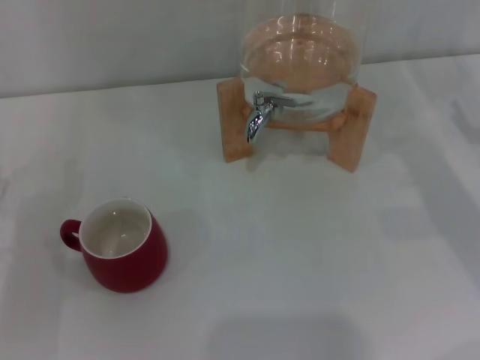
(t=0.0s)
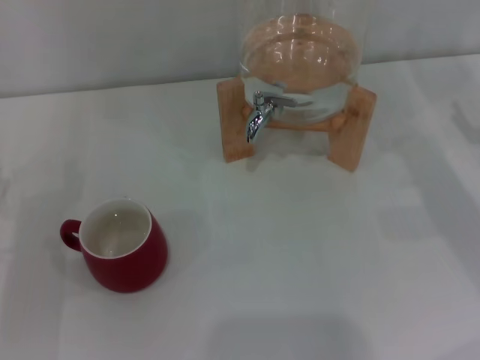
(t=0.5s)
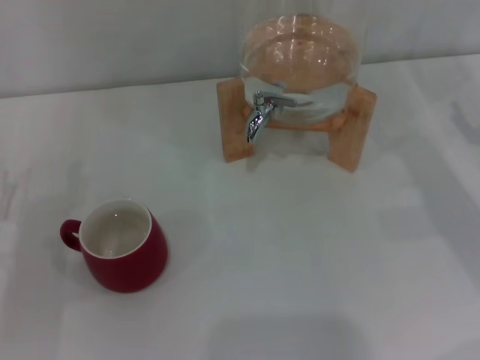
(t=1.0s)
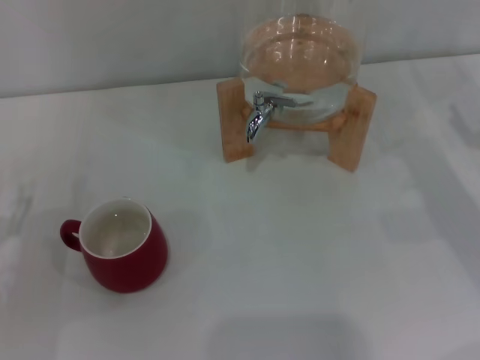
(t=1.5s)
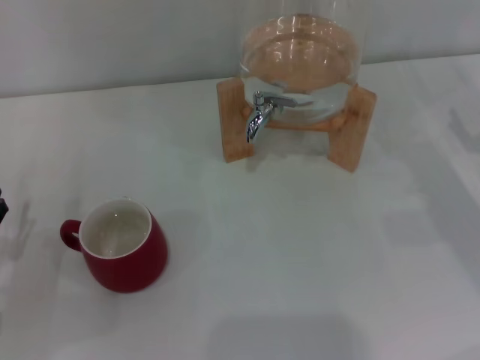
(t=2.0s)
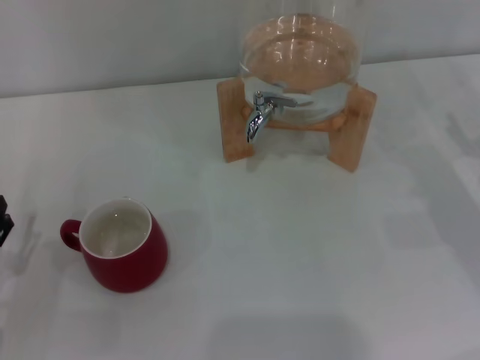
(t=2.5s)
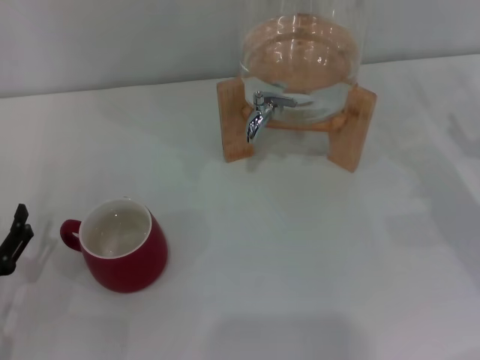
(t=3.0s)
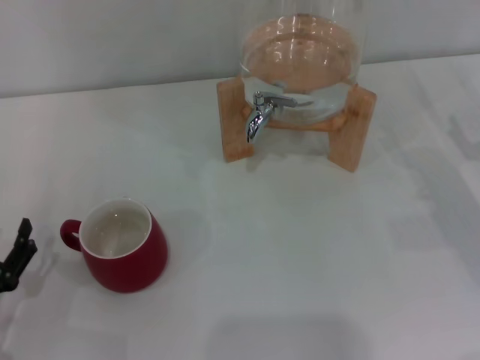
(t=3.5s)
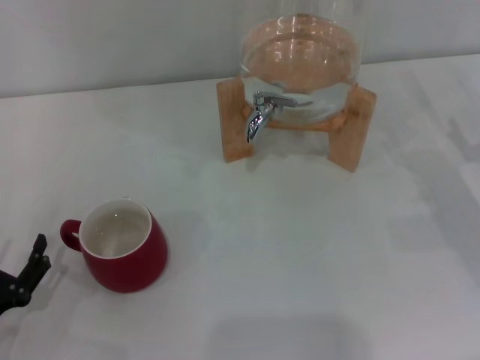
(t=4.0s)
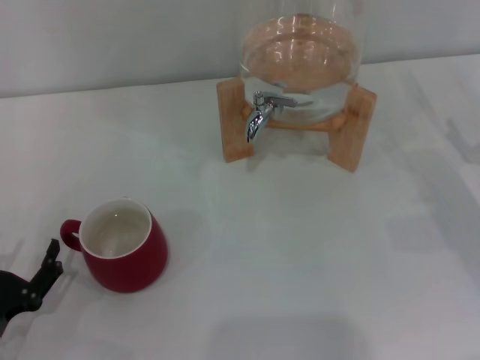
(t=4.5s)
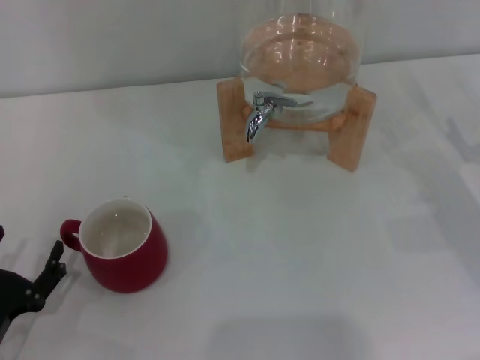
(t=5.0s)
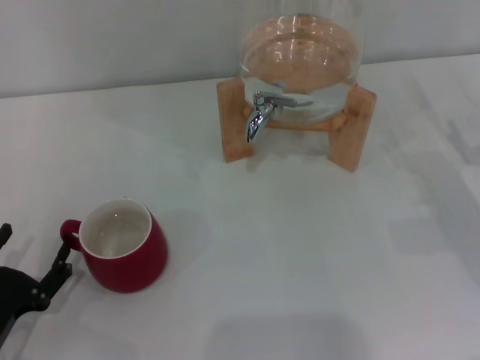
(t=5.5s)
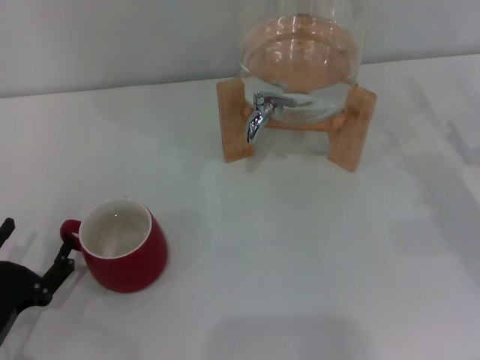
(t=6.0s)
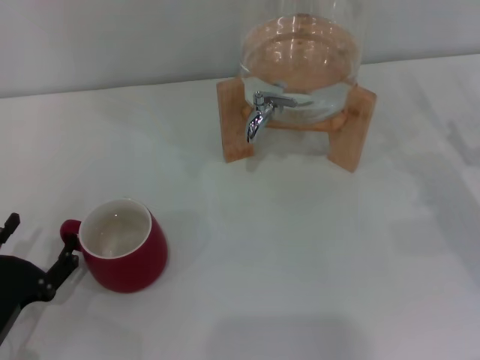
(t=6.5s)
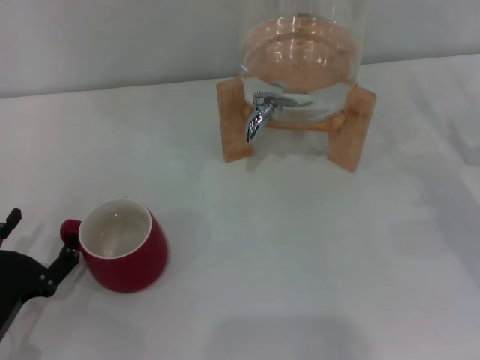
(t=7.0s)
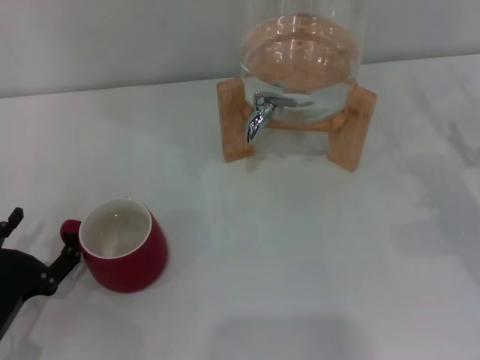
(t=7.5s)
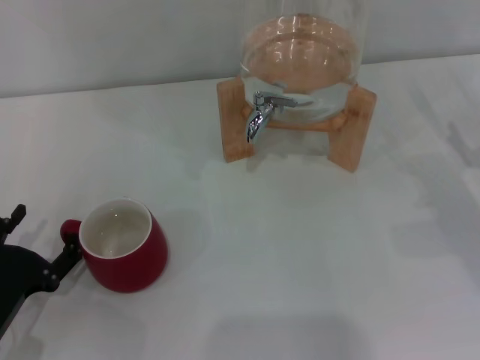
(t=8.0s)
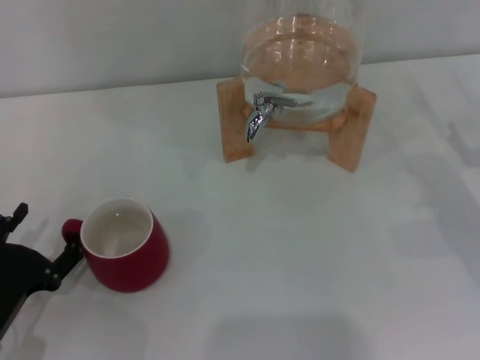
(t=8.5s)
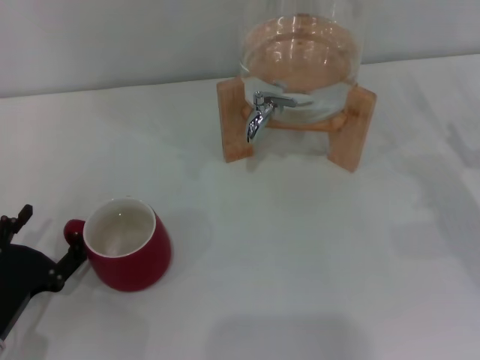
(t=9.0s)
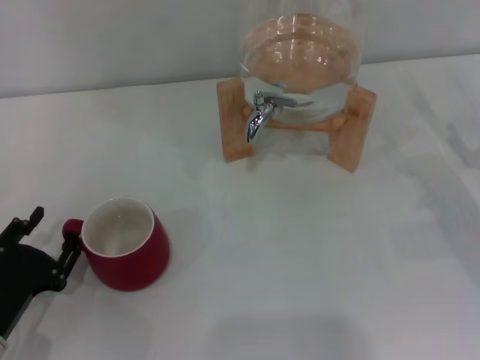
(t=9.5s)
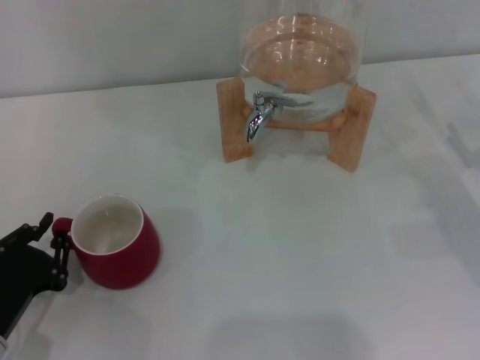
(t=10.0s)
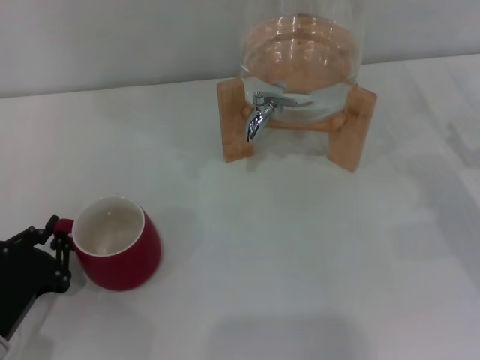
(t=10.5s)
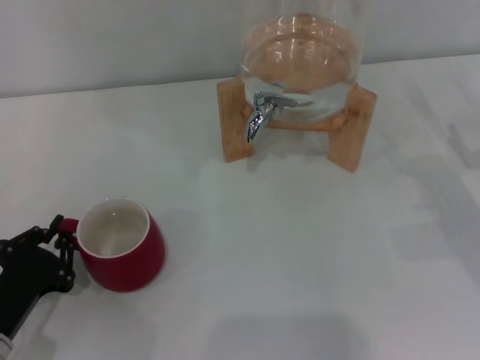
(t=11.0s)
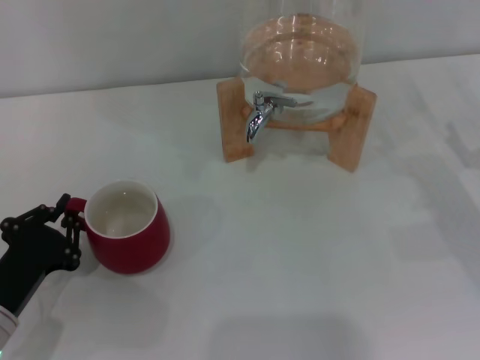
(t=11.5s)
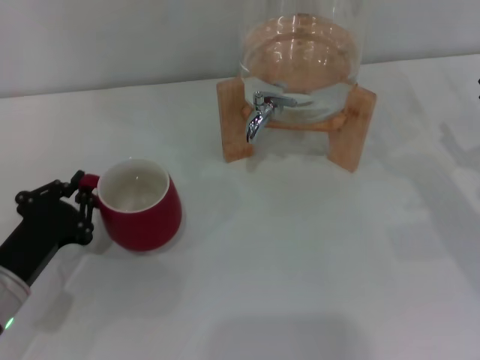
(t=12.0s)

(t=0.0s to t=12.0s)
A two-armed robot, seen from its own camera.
Task of the whole recording: the left gripper pick up the red cup and place it horizontally under the faucet, the right gripper turn on the faucet to fill the cup, and then turn off the faucet.
t=2.0s - t=4.0s: The left gripper goes approximately 5 cm backward.
t=4.0s - t=8.0s: The grippers make only small movements.
t=8.0s - t=10.0s: The left gripper closes its fingers.
t=10.0s - t=12.0s: The left gripper shifts by roughly 5 cm.

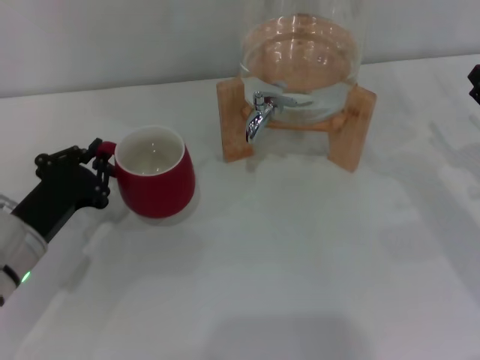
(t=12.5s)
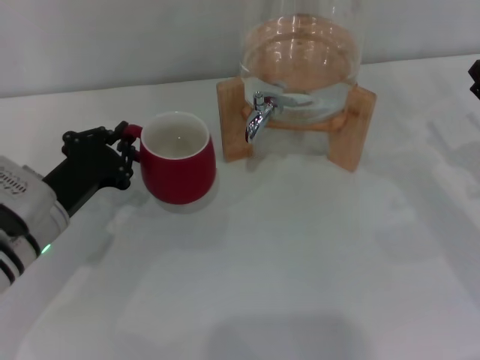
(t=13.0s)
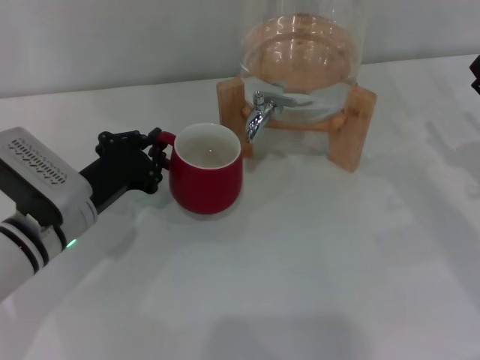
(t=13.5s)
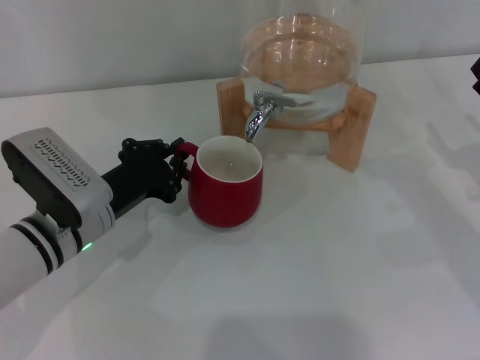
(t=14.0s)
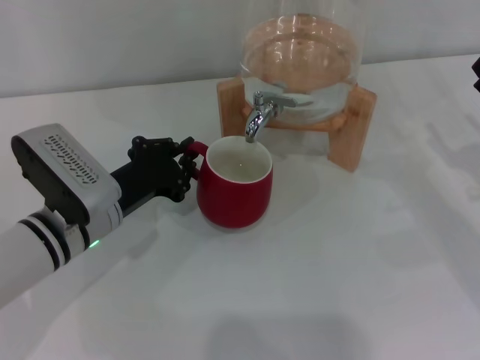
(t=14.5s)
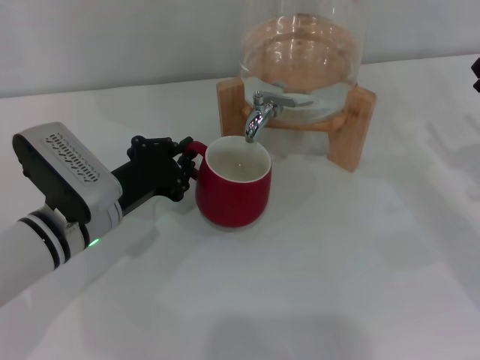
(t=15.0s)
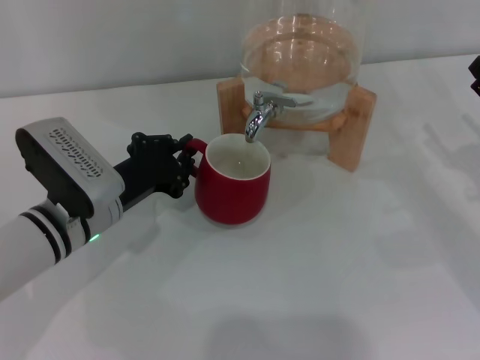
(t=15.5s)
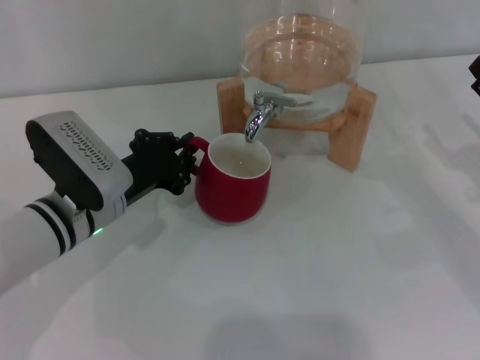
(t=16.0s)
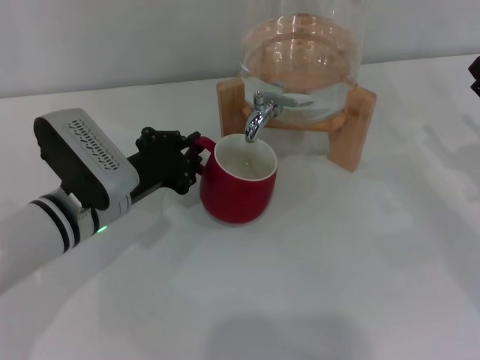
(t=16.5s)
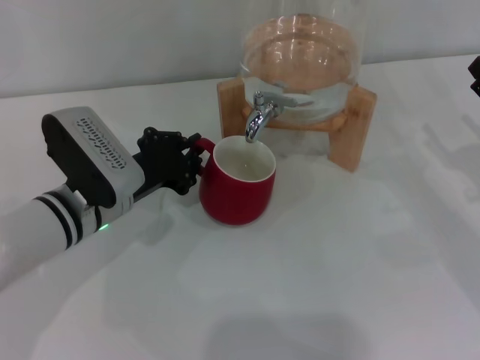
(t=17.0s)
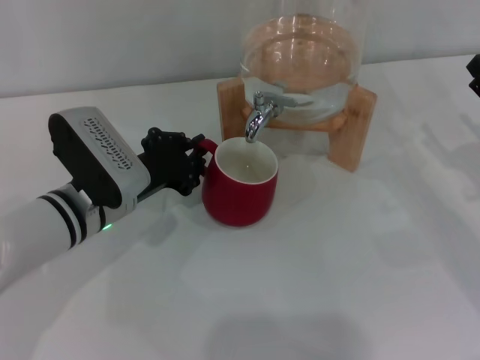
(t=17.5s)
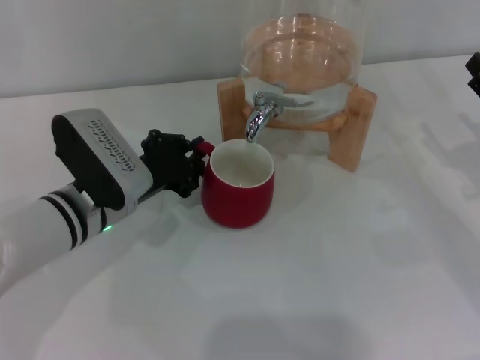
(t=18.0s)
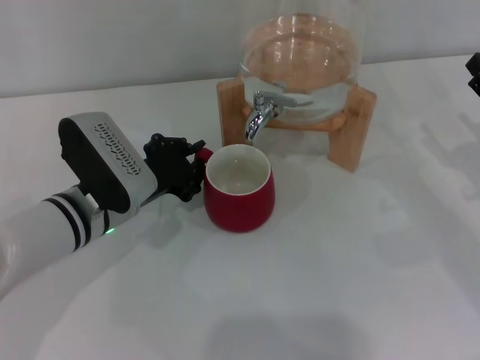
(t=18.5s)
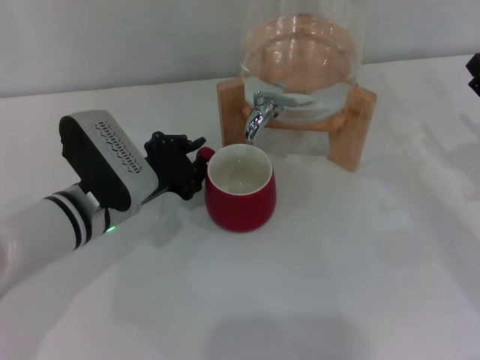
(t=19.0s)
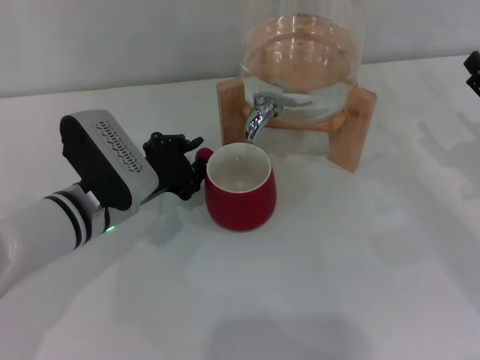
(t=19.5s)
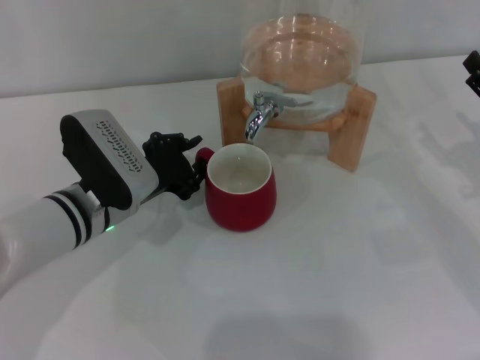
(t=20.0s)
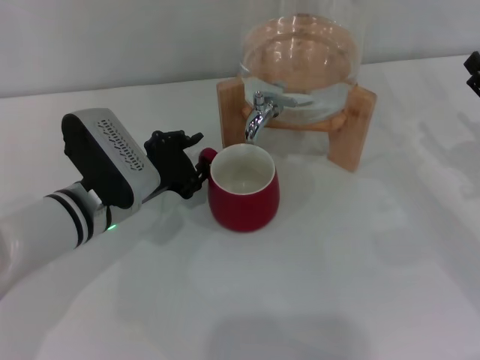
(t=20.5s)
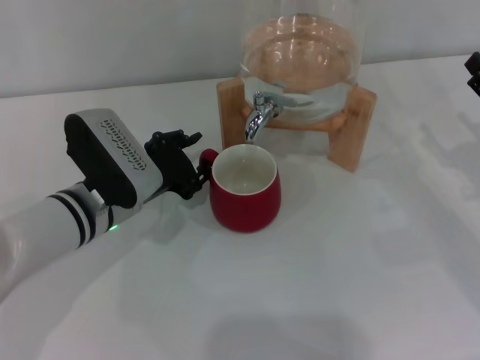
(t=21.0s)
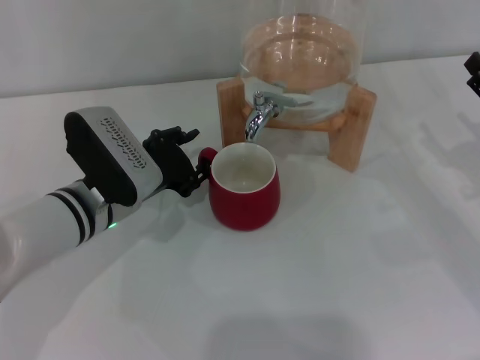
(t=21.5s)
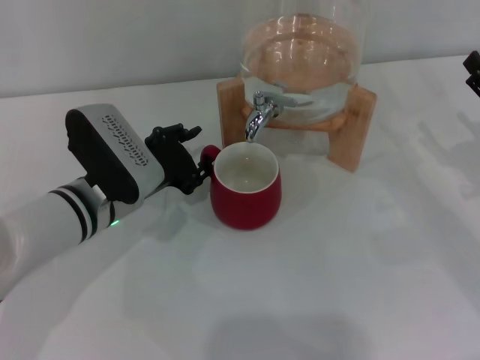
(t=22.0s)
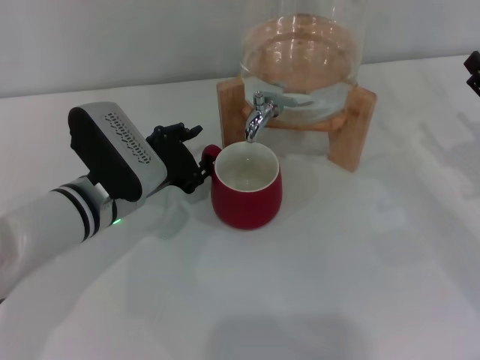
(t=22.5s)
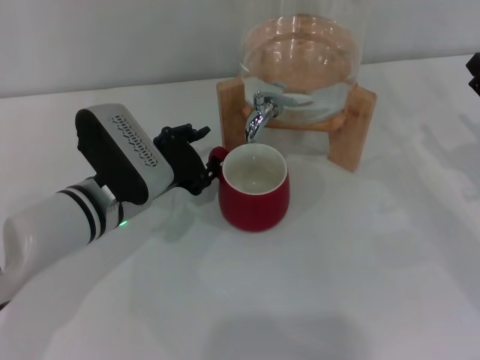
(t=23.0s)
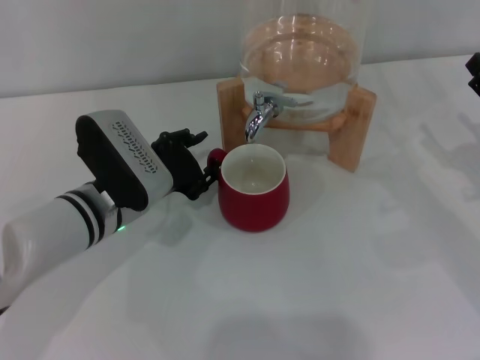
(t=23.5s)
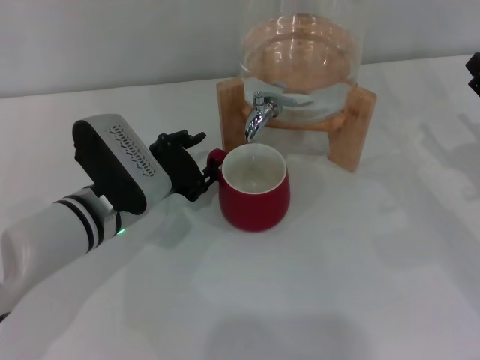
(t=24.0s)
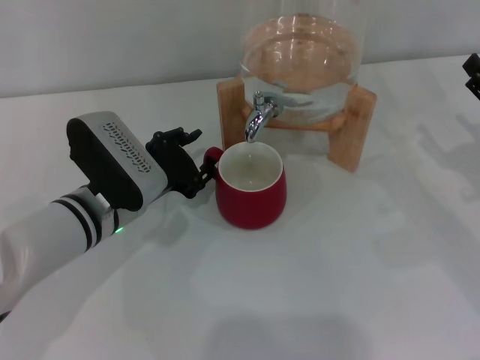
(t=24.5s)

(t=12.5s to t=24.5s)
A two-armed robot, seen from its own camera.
Task of the whole recording: the left gripper pick up the red cup and place it horizontally under the faucet, the right gripper turn on the faucet to fill the cup, and then turn off the faucet.
t=12.5s - t=14.5s: The left gripper travels to the right by roughly 5 cm.
t=14.5s - t=18.5s: There are only small adjustments of the grippers.
t=18.5s - t=22.5s: Neither gripper changes place.
t=22.5s - t=24.5s: Neither gripper changes place.

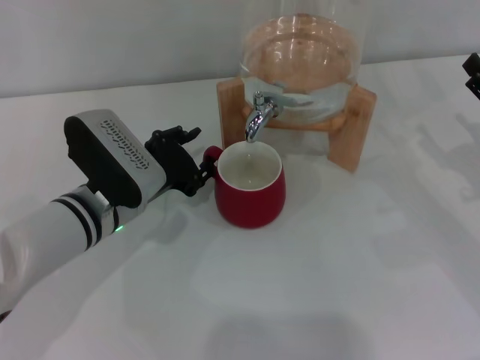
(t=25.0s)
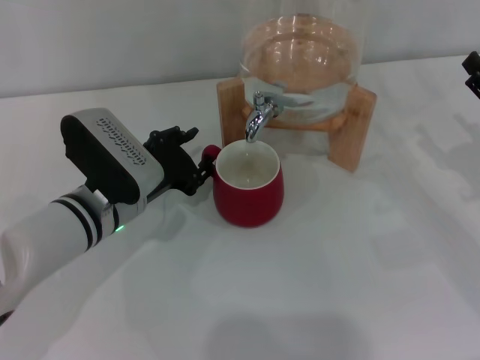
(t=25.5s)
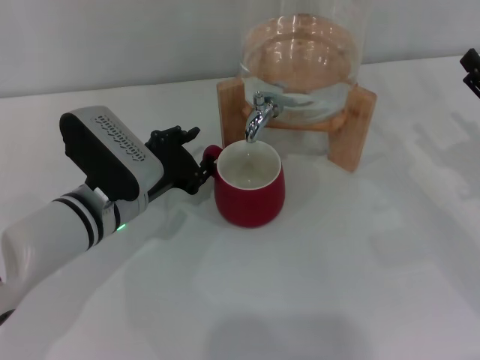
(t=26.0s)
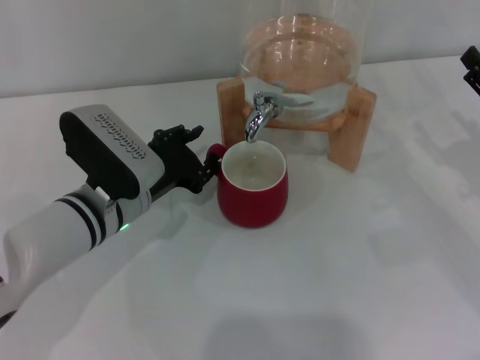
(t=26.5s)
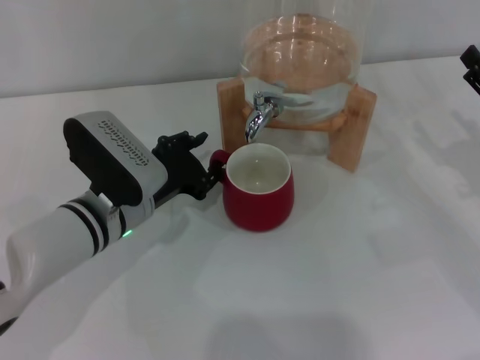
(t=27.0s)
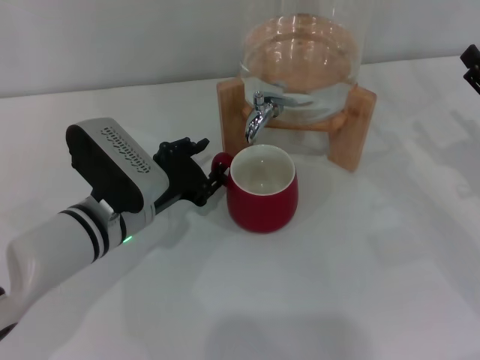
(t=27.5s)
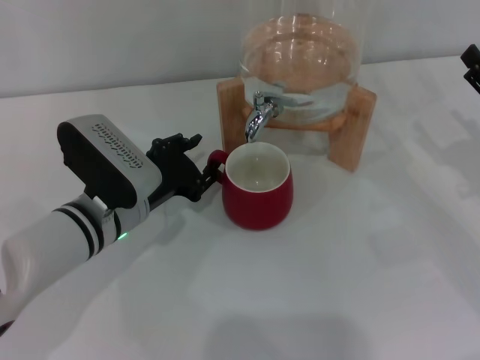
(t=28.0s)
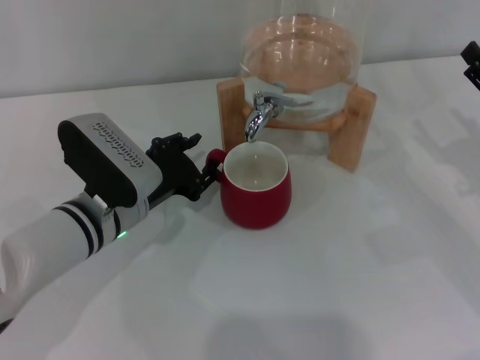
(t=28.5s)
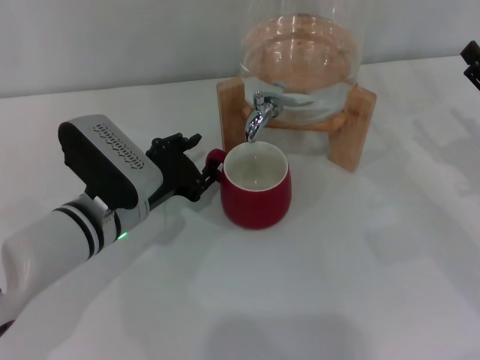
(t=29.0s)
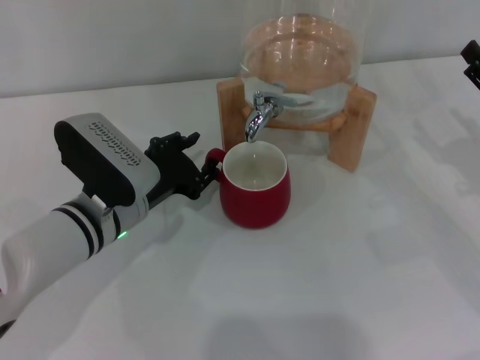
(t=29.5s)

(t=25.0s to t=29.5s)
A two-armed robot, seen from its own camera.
Task of the whole recording: the left gripper pick up the red cup and place it horizontally under the faucet, the right gripper turn on the faucet to fill the cup, and then turn off the faucet.
t=25.0s - t=27.0s: The grippers make only small movements.
t=27.0s - t=29.5s: The two grippers keep their place.
